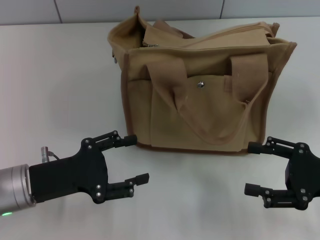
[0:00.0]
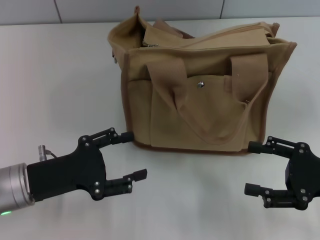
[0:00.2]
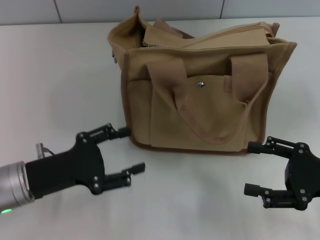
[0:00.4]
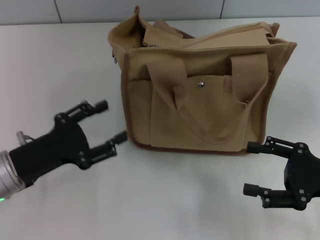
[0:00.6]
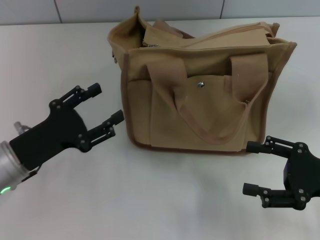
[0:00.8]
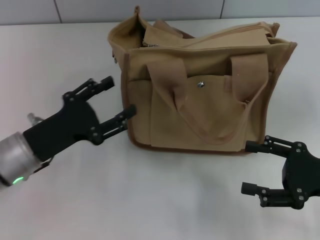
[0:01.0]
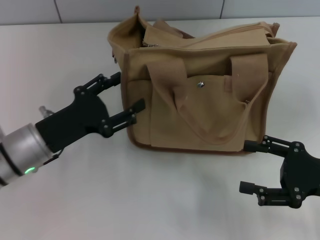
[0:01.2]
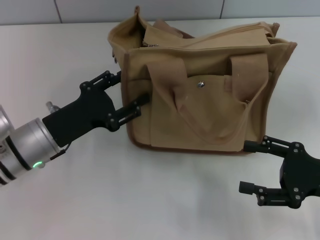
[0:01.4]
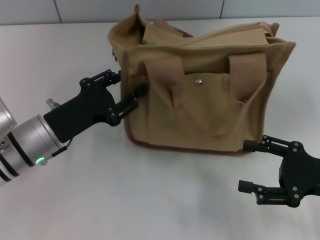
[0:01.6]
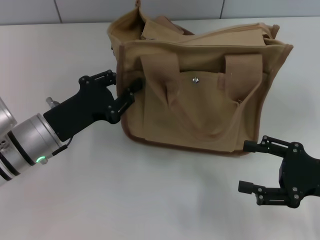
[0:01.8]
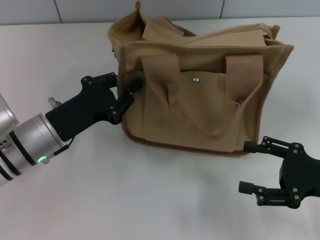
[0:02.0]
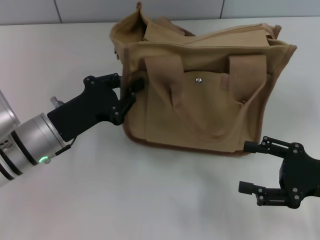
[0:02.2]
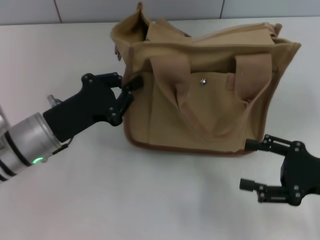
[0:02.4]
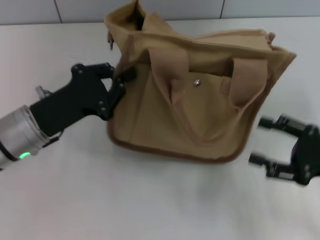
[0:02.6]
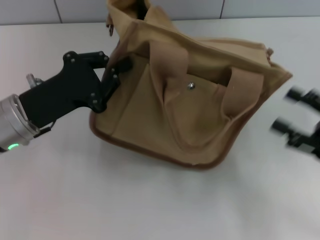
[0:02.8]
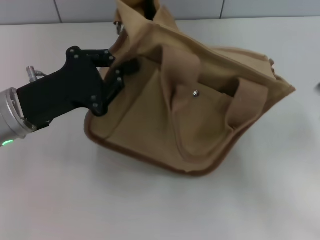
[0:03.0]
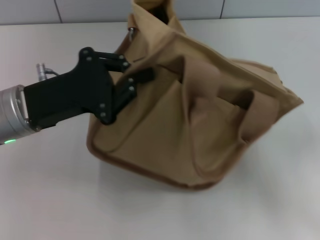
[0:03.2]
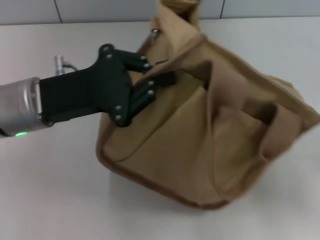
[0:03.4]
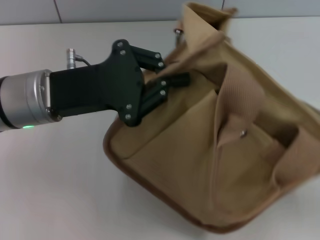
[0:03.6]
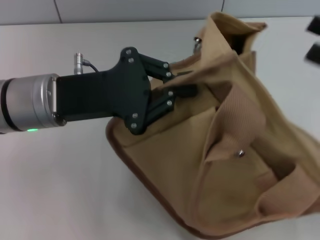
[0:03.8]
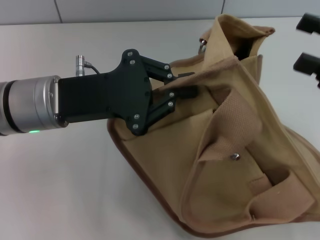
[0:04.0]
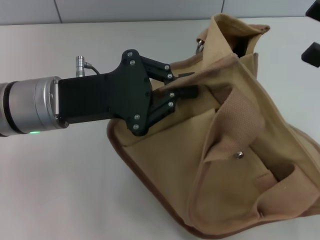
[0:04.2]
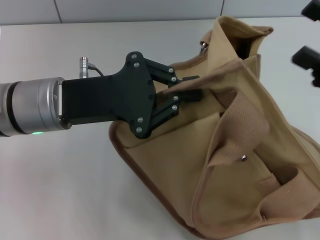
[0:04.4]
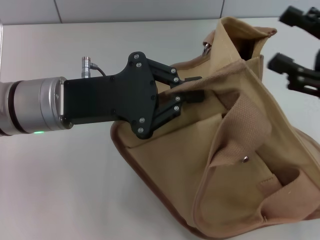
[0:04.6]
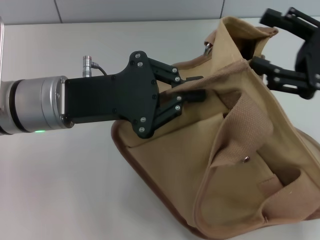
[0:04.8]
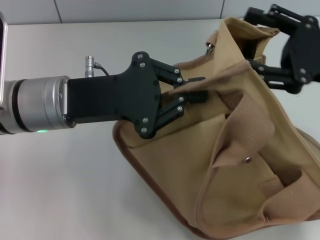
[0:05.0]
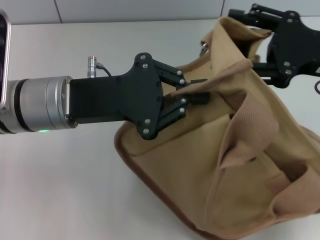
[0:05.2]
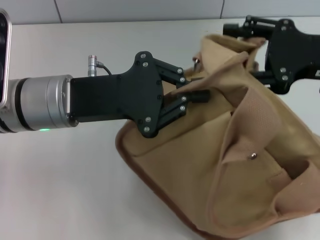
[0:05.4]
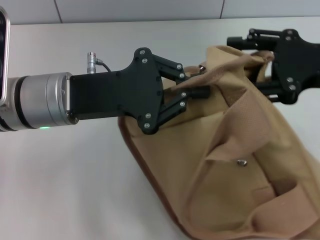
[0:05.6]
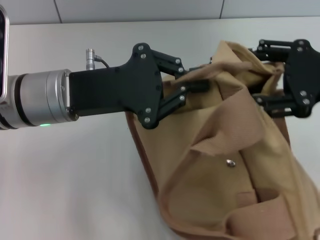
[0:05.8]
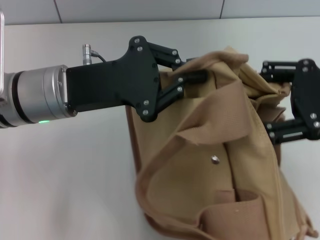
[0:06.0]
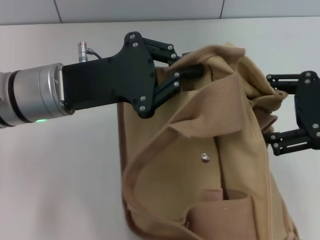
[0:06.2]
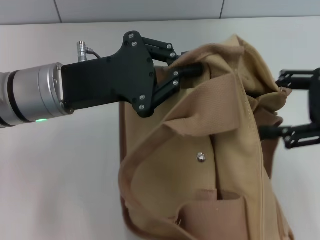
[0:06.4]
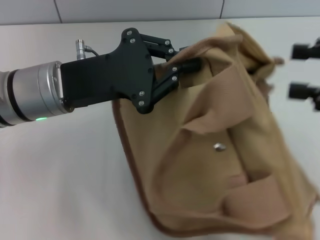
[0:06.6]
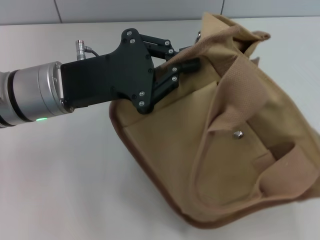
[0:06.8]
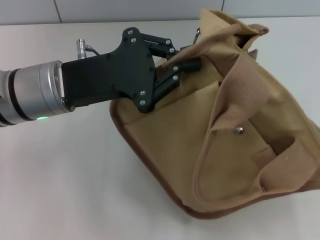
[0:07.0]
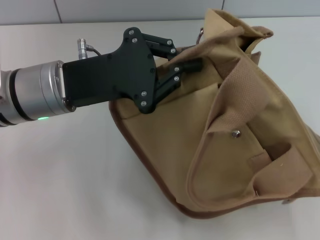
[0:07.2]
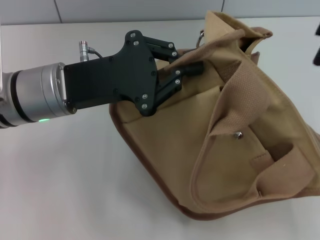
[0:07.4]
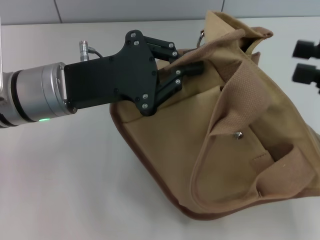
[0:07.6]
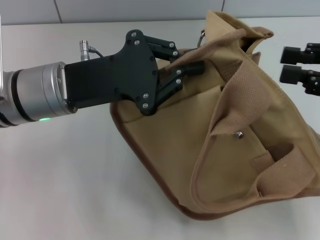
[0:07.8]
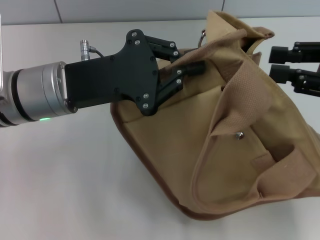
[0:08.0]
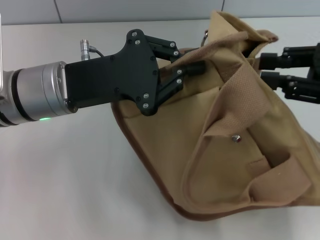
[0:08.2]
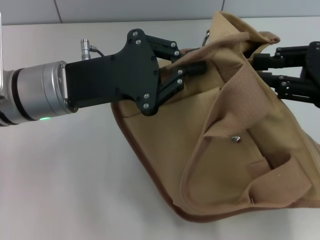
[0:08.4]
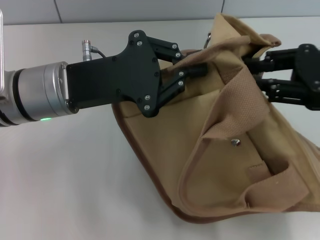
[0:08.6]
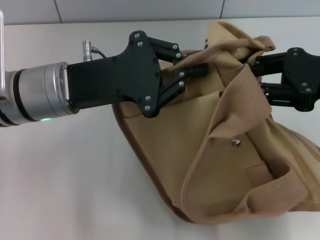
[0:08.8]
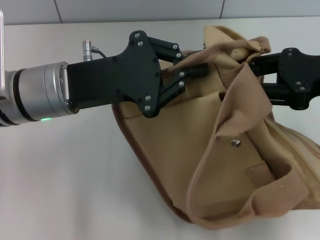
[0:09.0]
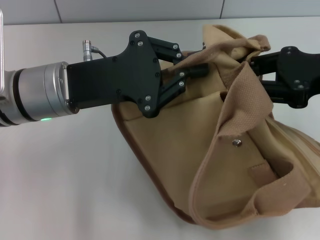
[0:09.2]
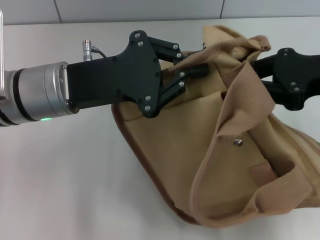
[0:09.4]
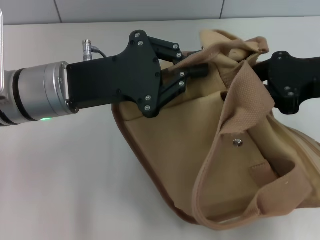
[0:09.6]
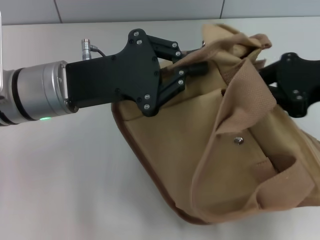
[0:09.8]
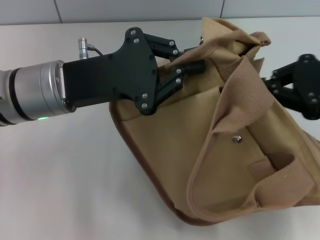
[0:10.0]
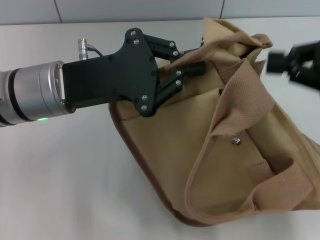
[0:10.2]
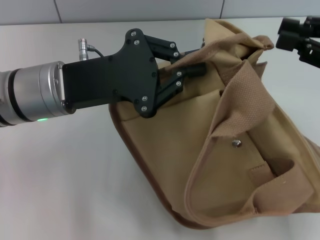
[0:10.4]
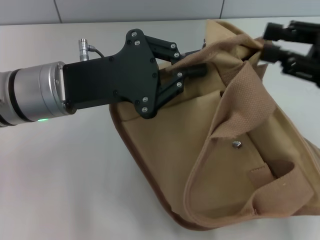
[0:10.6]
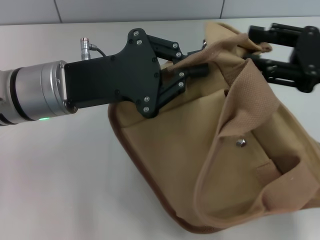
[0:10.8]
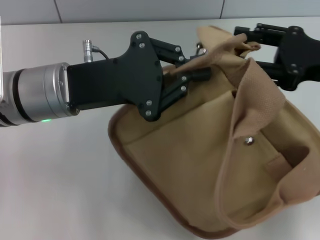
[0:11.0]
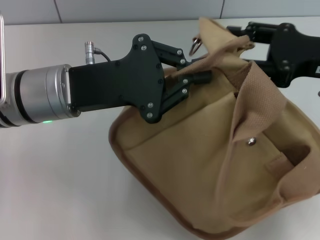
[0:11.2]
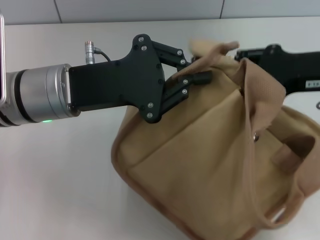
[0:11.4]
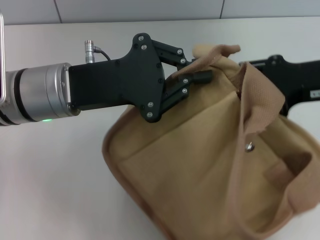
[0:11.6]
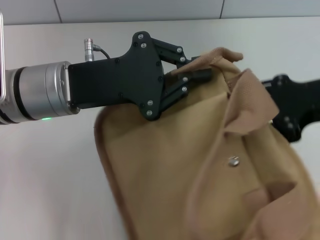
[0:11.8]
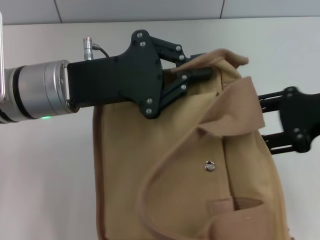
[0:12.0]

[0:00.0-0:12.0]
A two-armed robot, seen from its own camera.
0:00.0 to 0:01.6: The left gripper travels forward by approximately 5 cm.
0:01.6 to 0:03.0: The left gripper travels upward by about 5 cm, and closes its fingers. Meanwhile the right gripper ends up some 5 cm from where it was.
0:03.0 to 0:04.4: The left gripper goes approximately 5 cm to the right. The right gripper heads upward and forward, covering some 10 cm.
0:04.4 to 0:06.0: The right gripper is displaced upward by about 5 cm.
0:07.6 to 0:09.0: The right gripper is displaced to the left by roughly 5 cm, and closes up.
0:09.0 to 0:10.4: The right gripper closes.
0:10.4 to 0:12.0: The right gripper opens its fingers.

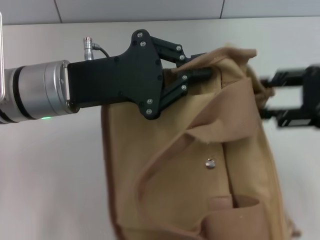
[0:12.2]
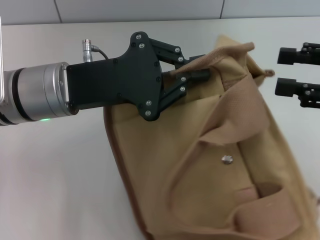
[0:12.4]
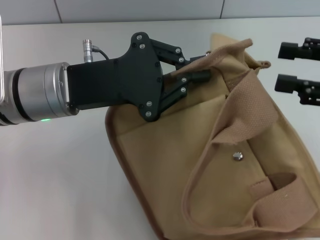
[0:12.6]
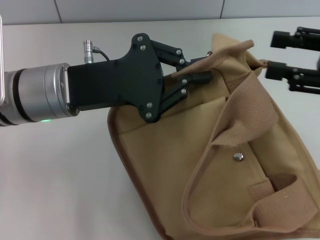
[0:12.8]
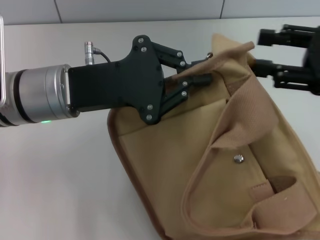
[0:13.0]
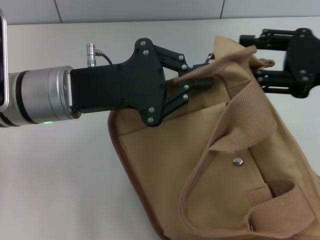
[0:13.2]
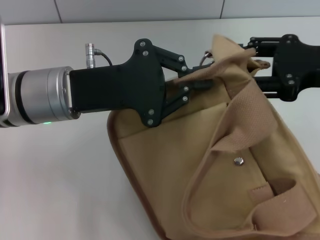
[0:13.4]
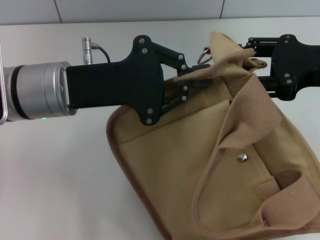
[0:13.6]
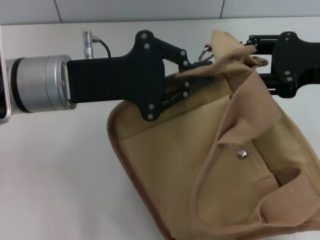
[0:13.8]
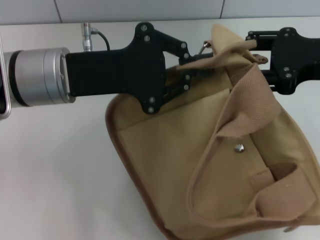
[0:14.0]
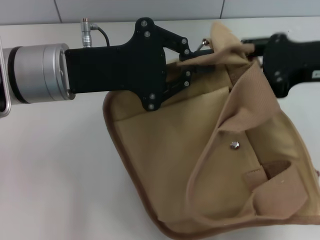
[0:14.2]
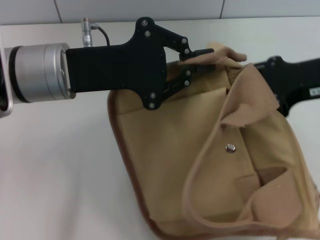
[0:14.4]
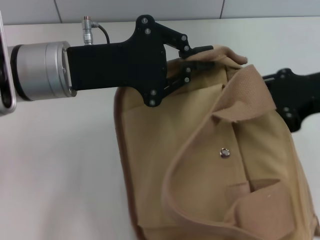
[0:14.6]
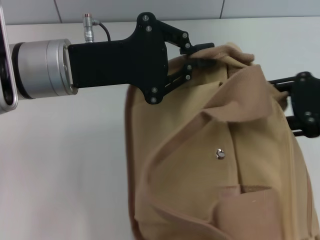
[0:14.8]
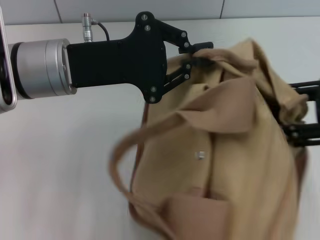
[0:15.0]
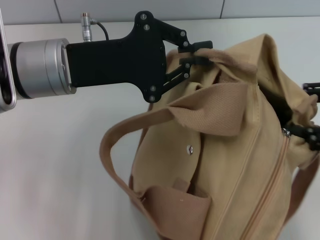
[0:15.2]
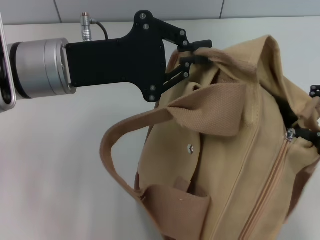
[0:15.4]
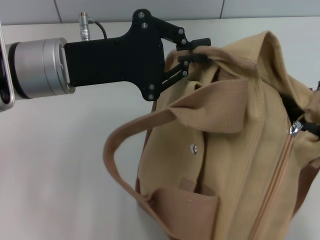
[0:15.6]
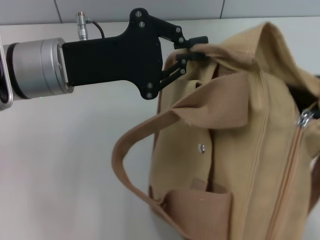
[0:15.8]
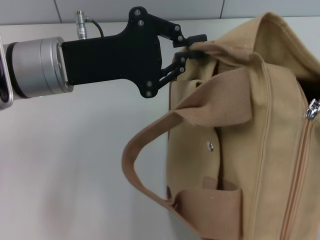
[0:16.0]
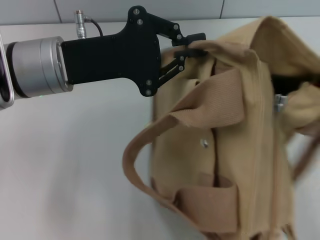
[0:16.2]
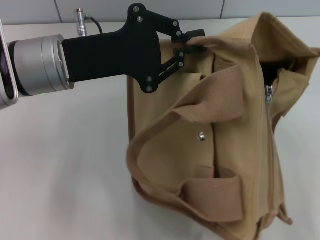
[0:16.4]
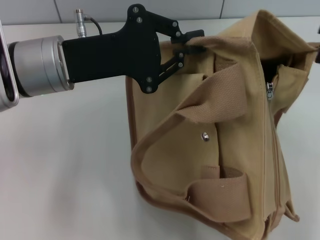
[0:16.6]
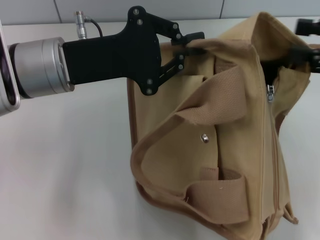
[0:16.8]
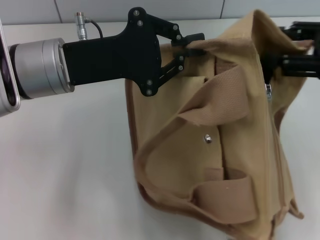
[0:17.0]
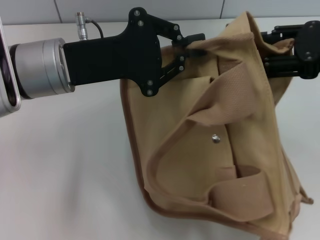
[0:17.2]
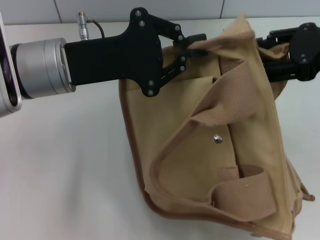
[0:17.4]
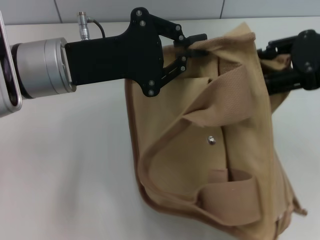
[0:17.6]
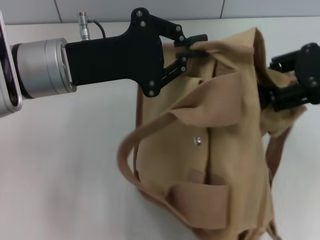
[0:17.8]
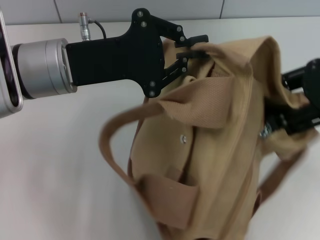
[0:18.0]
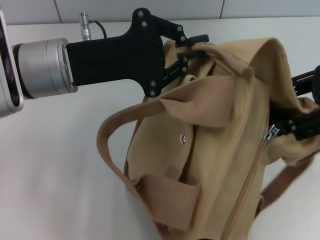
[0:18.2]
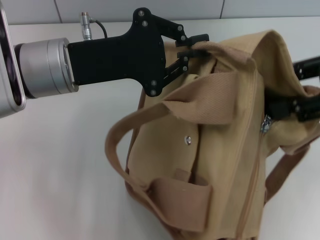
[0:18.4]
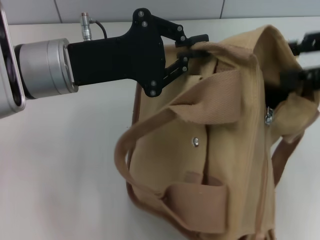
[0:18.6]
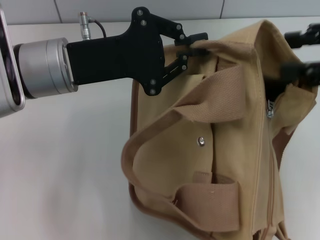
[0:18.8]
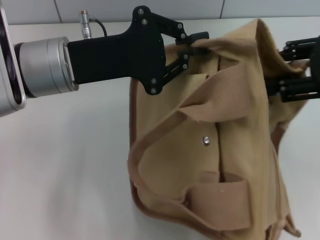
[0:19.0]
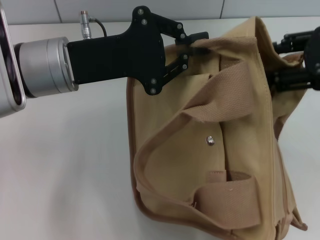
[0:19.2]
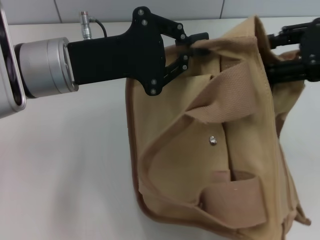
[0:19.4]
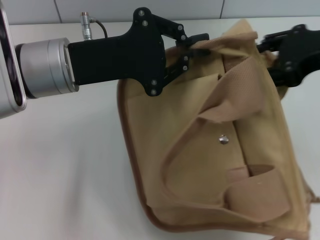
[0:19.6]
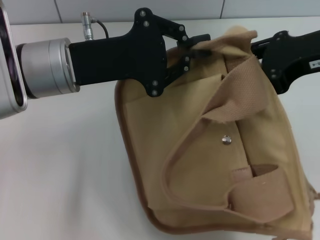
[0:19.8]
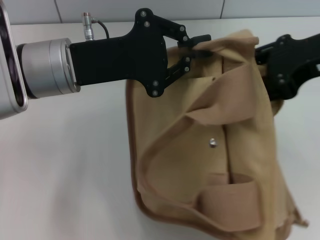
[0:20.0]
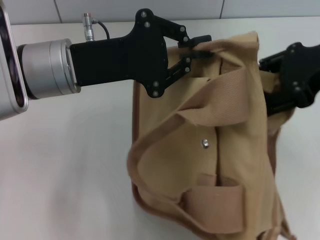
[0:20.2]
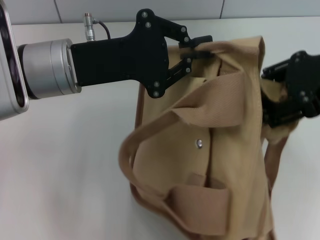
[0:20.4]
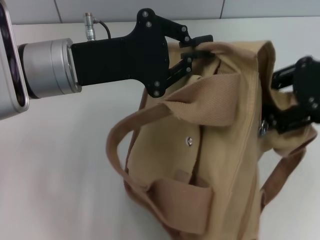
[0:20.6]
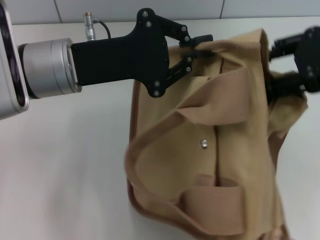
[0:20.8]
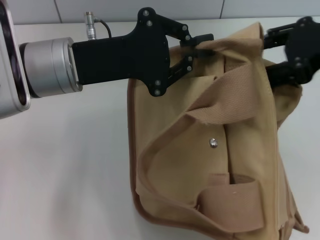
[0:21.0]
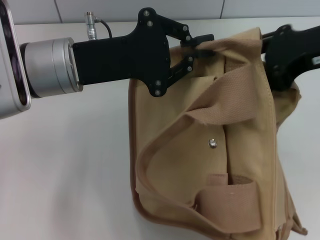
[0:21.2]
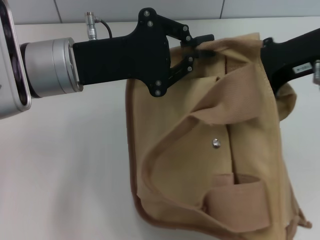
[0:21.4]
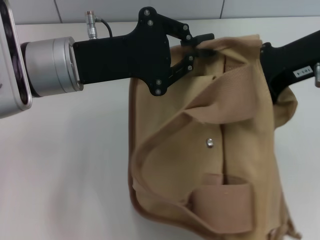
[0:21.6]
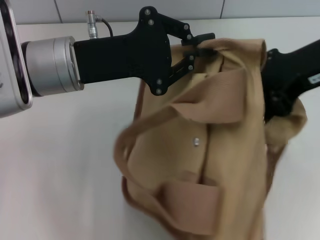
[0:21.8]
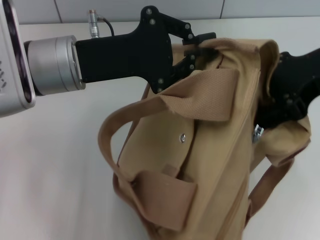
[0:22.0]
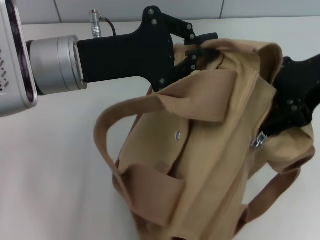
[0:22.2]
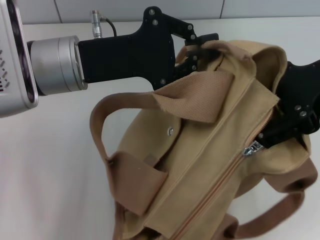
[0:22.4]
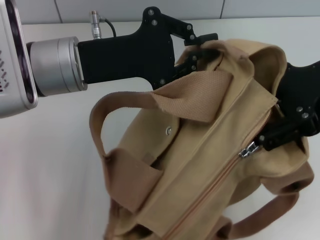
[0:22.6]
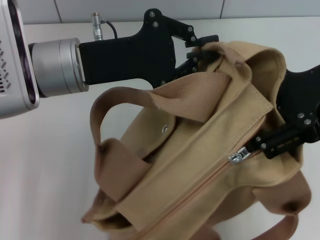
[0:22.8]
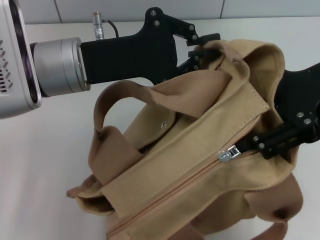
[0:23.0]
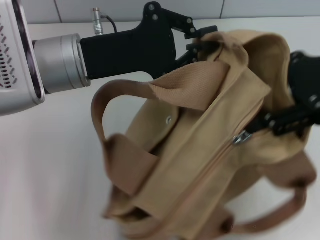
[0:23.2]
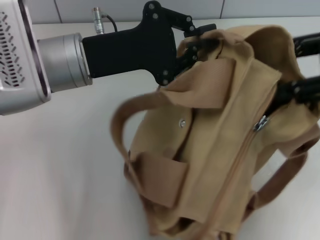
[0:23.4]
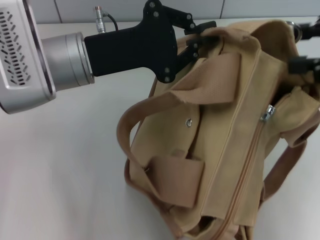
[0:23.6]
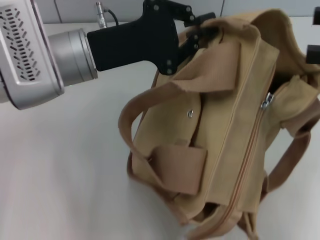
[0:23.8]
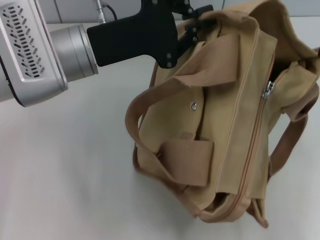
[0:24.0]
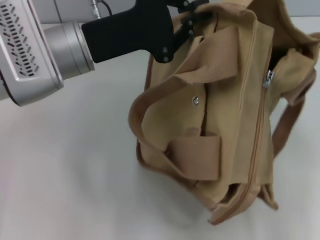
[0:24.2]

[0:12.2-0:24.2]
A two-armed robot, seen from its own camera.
0:12.2 to 0:13.8: The right gripper shifts by about 5 cm.
0:13.8 to 0:15.2: The right gripper heads to the right and backward, covering about 10 cm.
0:16.6 to 0:18.2: The right gripper is displaced to the left by roughly 5 cm.
0:18.2 to 0:19.8: The right gripper moves roughly 5 cm.
0:22.6 to 0:24.2: The right gripper shifts some 10 cm to the right and backward.
